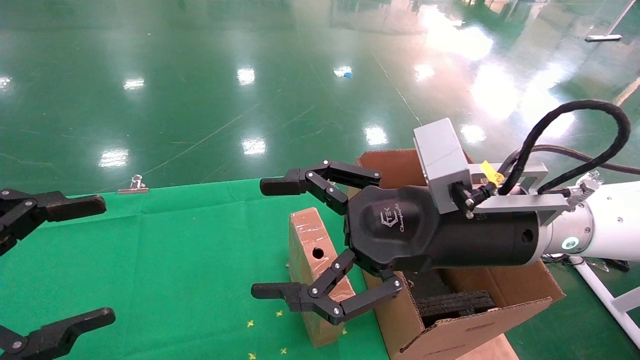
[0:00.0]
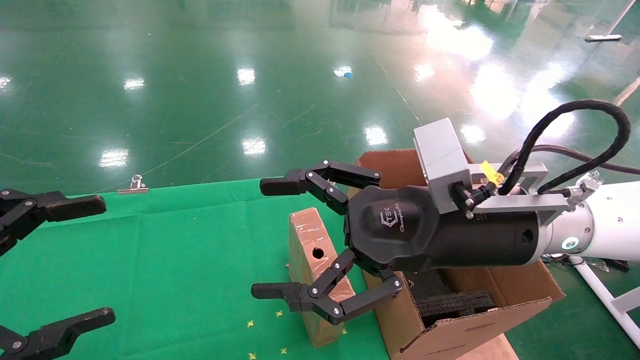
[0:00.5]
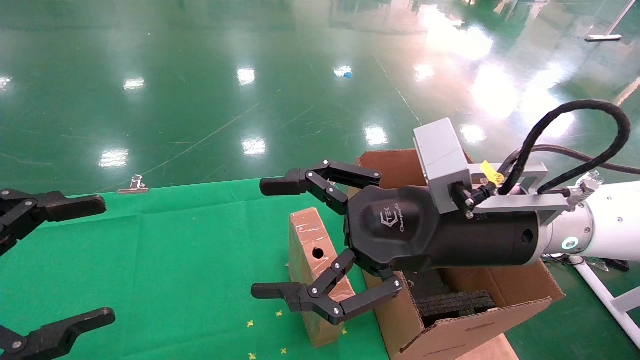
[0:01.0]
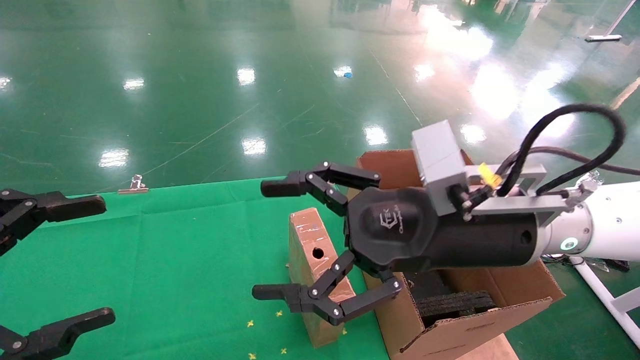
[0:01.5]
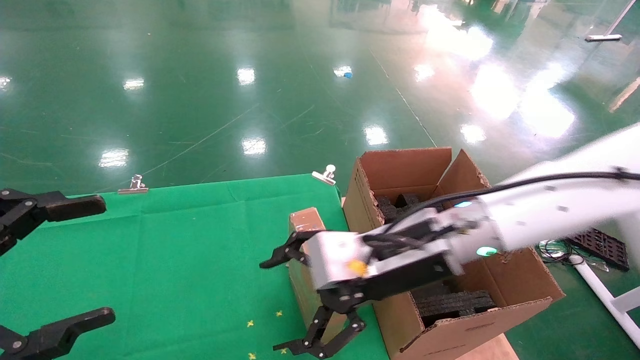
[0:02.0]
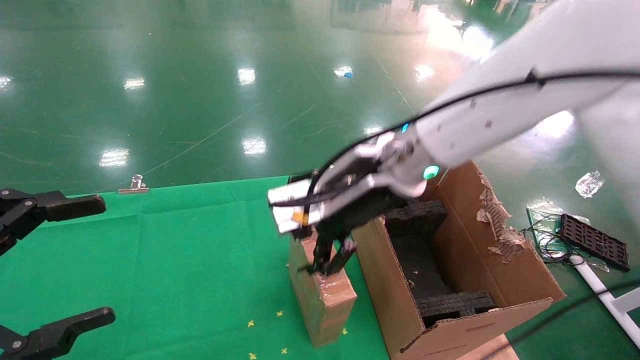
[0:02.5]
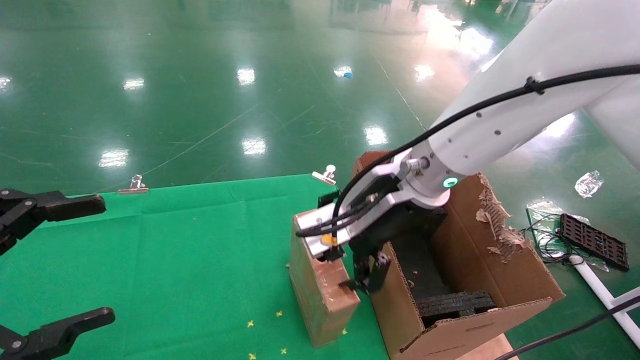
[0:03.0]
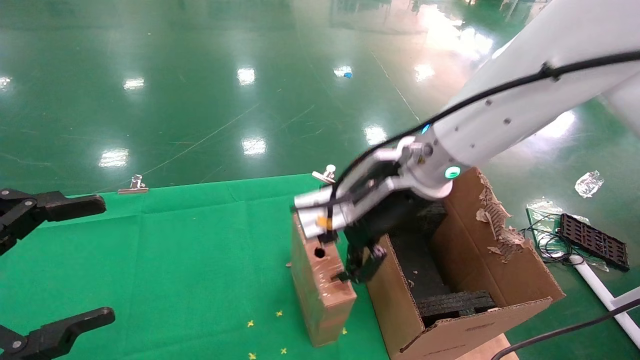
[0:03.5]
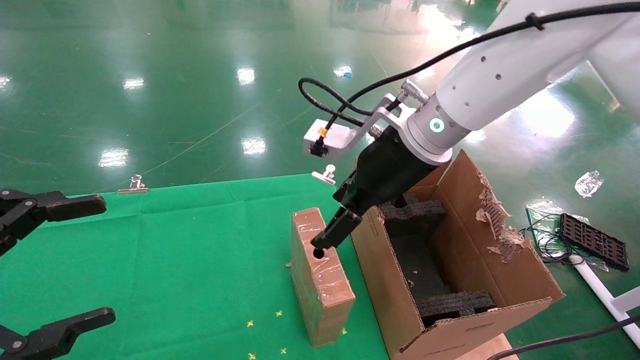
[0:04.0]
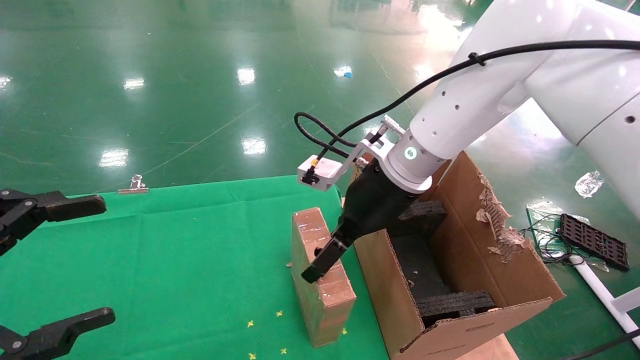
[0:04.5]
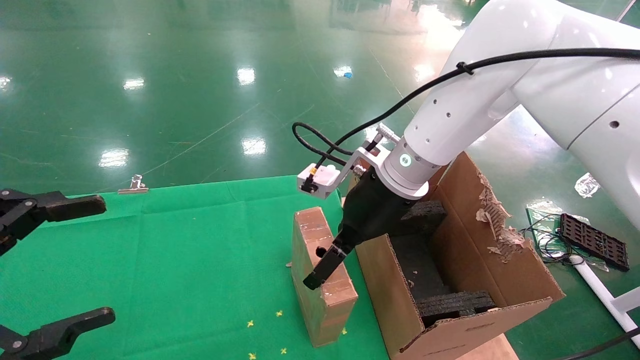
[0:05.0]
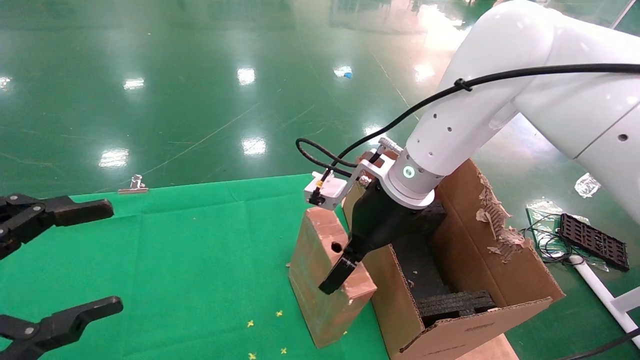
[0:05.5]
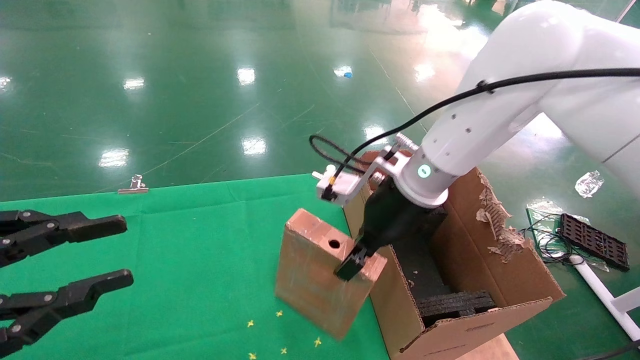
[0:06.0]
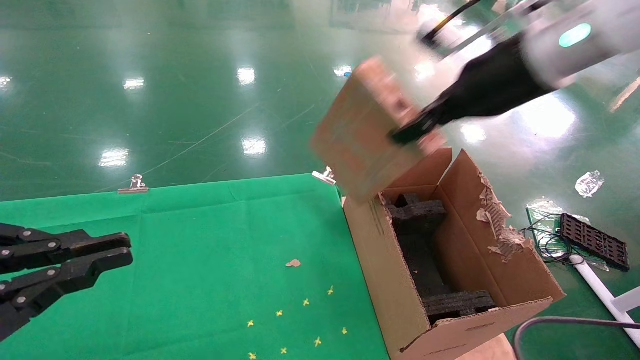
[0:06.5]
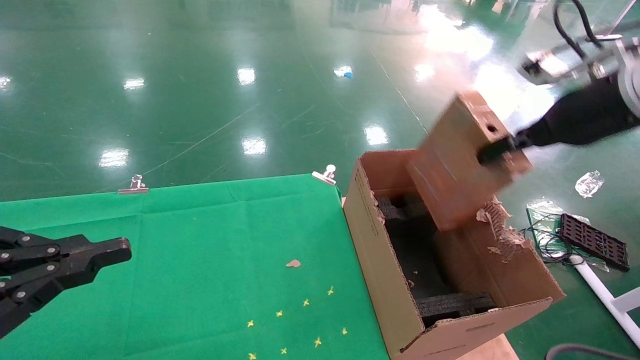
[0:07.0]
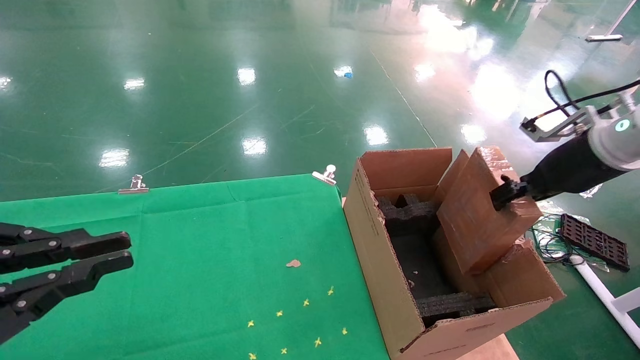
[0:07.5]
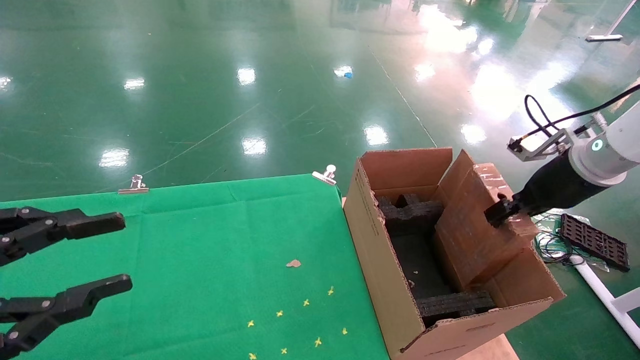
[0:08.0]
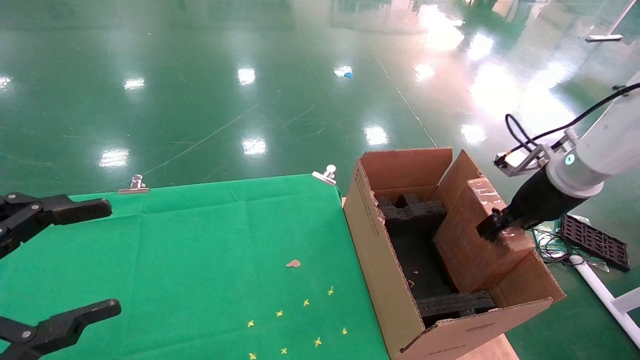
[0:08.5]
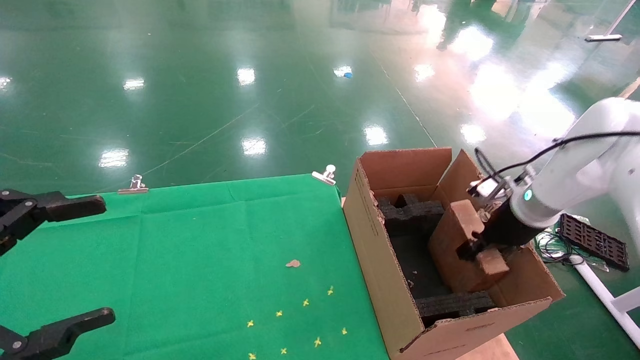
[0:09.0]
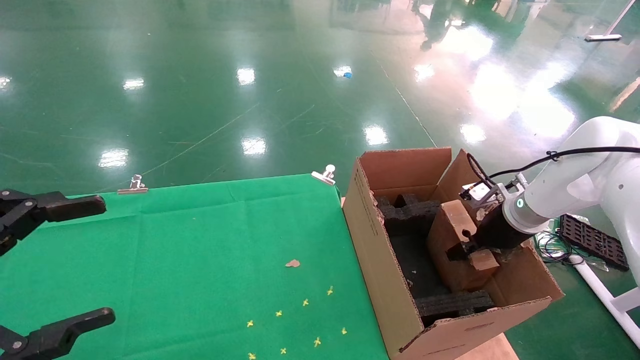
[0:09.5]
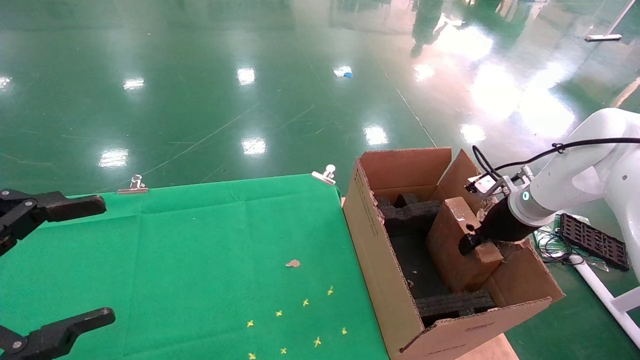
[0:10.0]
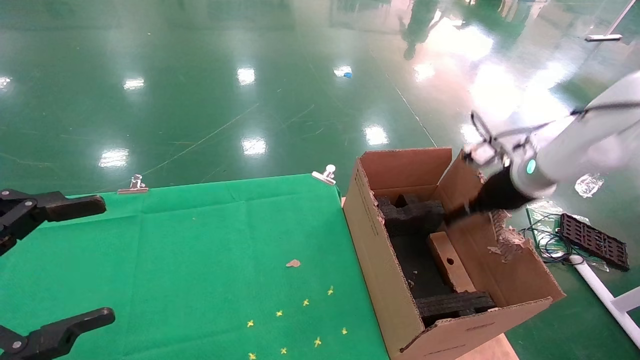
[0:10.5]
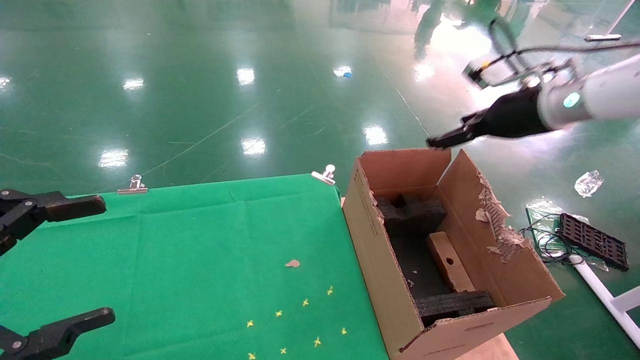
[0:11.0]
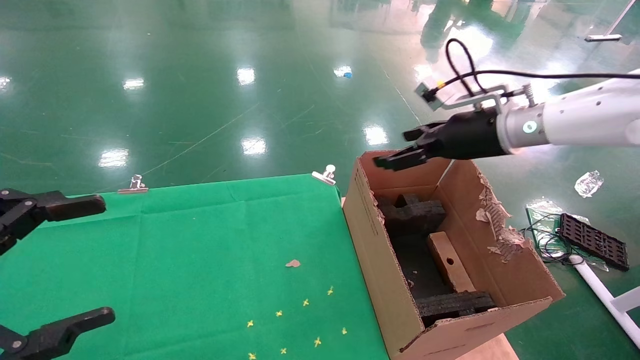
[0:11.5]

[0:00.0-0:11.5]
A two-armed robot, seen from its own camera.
Task of the whole recording: using a robotic arm to pick up a cardboard box and palace it the carton.
Step, 0:01.5 to 0:05.5: Pick up the mouse and the power cord paper box.
Step, 0:06.0 to 0:10.5: Place the mouse and the power cord paper box into the container.
0:00.0 to 0:02.0: The right gripper moves forward, approximately 5 cm.
0:02.0 to 0:04.0: The right gripper travels upward and forward by approximately 10 cm.
0:04.0 to 0:06.0: The left gripper closes. The right gripper closes its fingers.
0:06.0 to 0:07.5: The left gripper closes up. The right gripper goes some 25 cm to the right.
0:07.5 to 0:09.5: The right gripper travels downward and forward by roughly 15 cm, while the left gripper opens up.
0:09.5 to 0:11.5: The right gripper moves upward and to the left, approximately 15 cm, and opens.

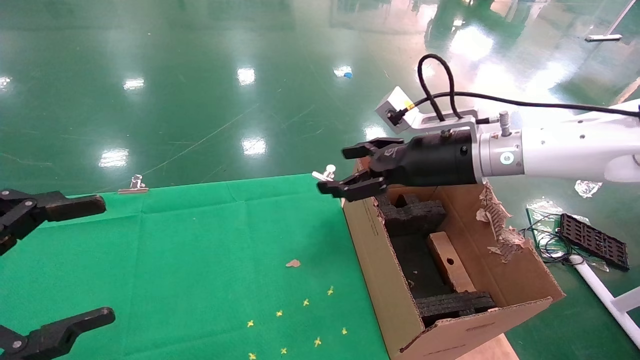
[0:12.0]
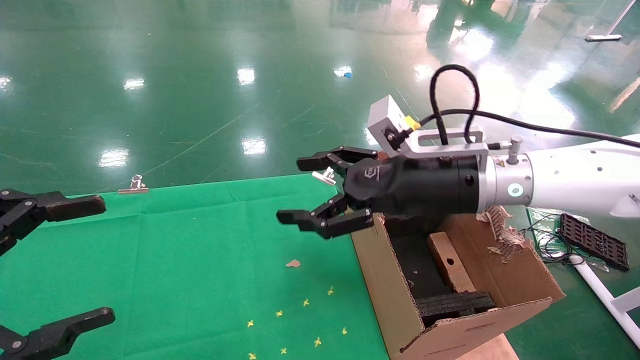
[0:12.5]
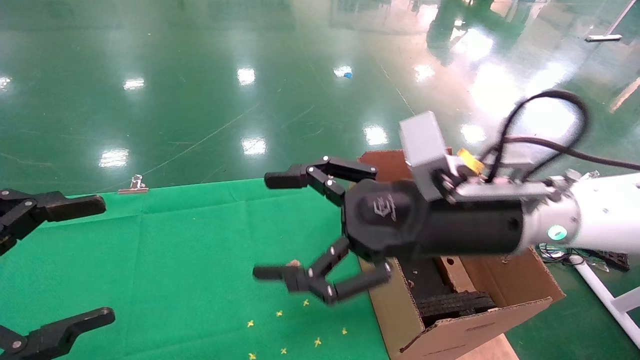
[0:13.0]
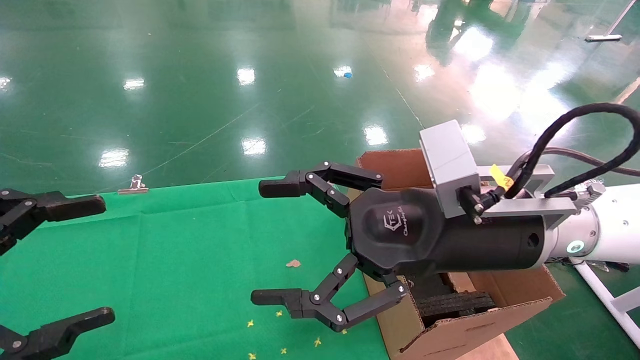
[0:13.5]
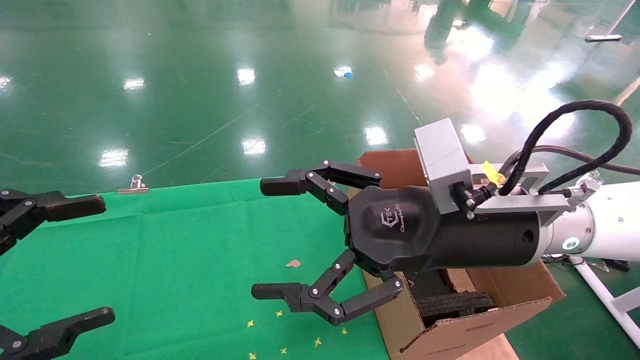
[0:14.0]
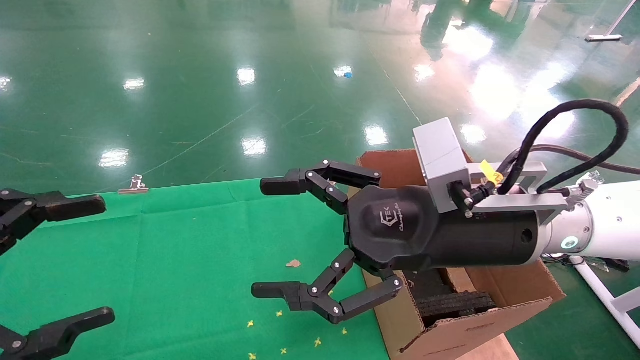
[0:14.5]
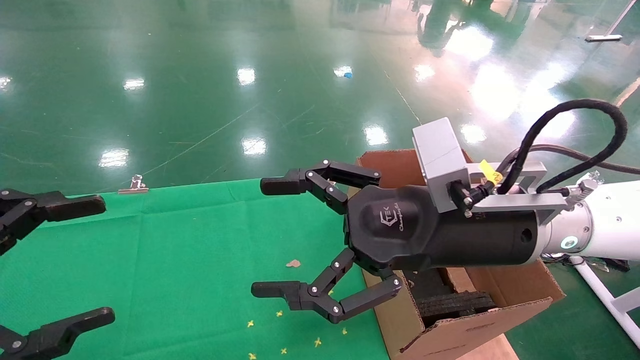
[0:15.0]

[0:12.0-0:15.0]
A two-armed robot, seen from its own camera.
Task of the whole recording: using a robotic arm to pick up a cardboard box and palace it the carton.
0:12.0 to 0:13.5: The right gripper goes about 15 cm backward and to the left.
0:13.5 to 0:15.0: Both grippers stay put.
